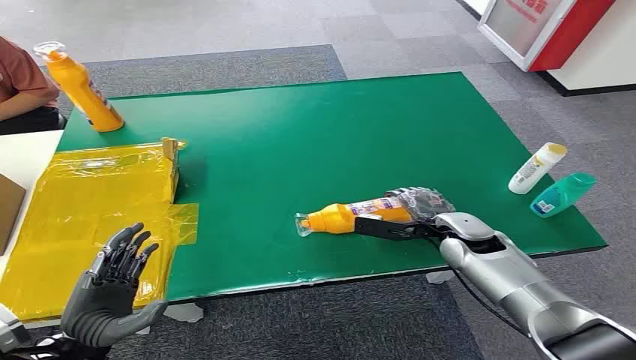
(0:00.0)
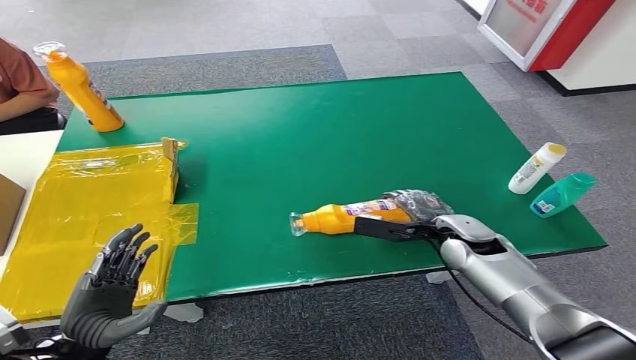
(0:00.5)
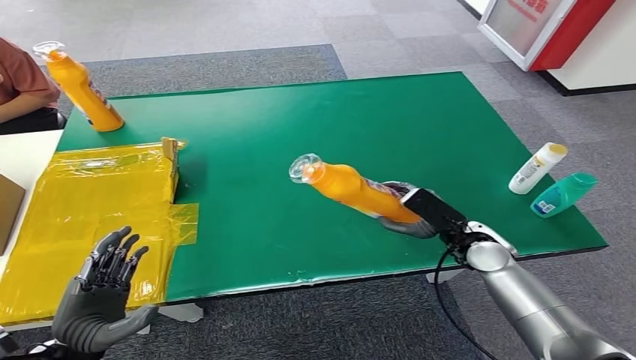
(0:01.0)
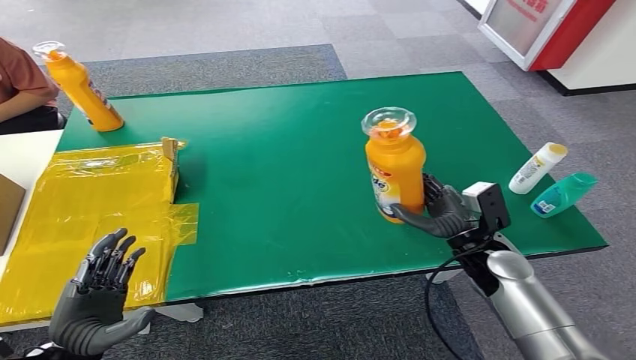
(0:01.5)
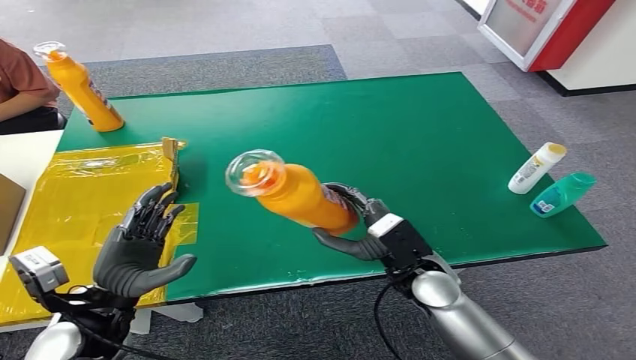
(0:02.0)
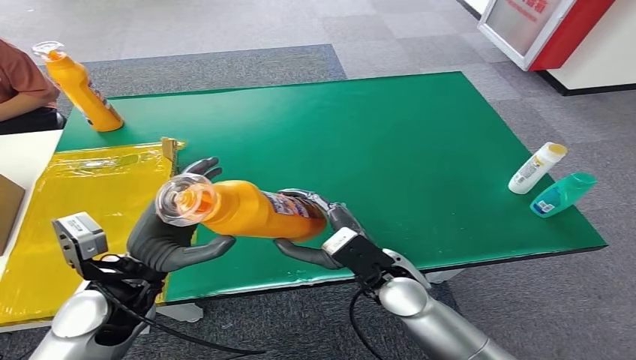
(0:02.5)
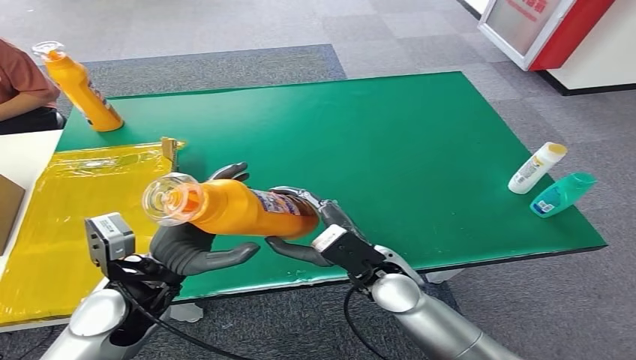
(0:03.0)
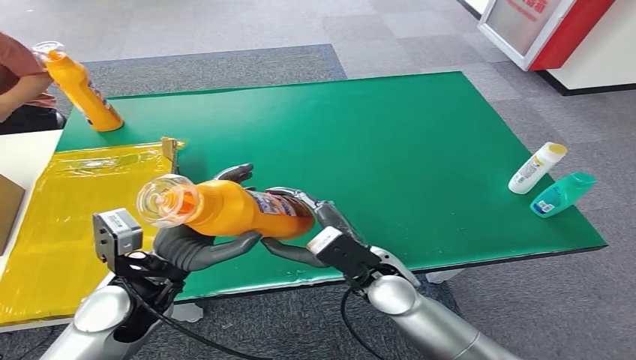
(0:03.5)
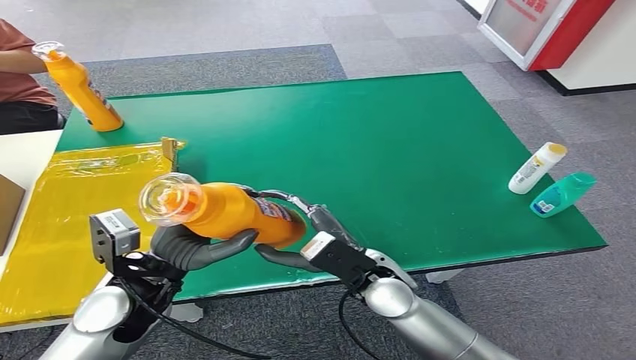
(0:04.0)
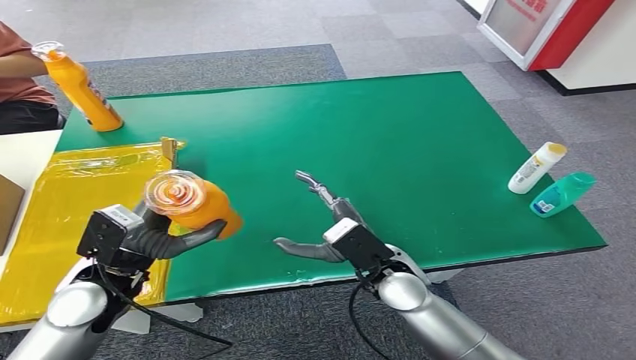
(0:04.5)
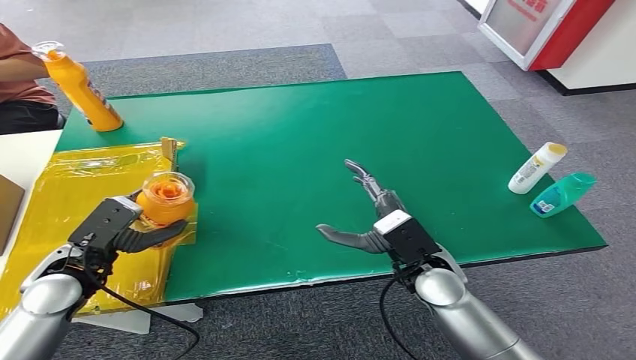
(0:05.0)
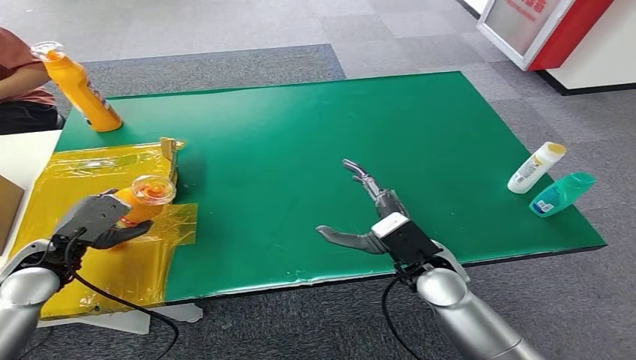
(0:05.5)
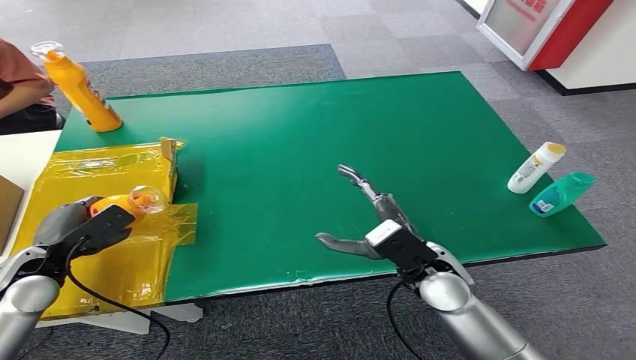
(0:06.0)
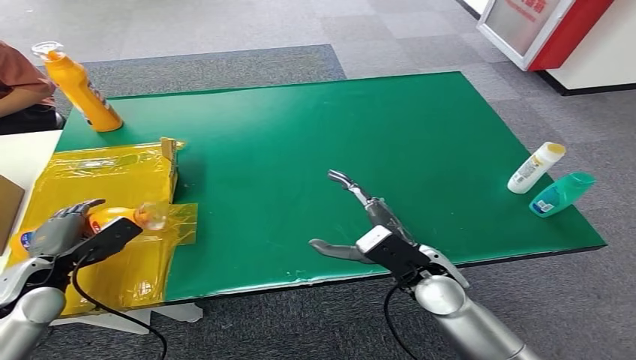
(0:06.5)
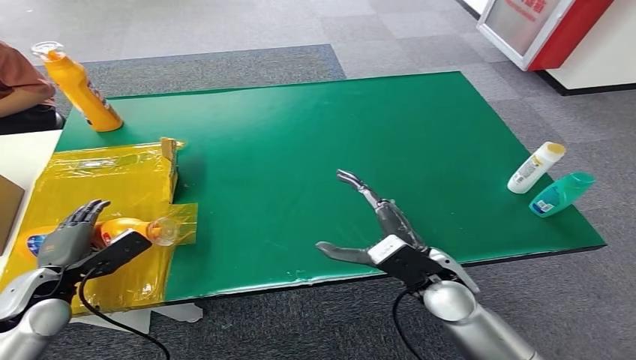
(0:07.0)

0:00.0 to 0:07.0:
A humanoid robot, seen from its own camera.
Step, 0:00.0 to 0:01.0: Pick up the bottle from the table.
Step, 0:02.0 to 0:07.0: Turn the bottle to the front side.
0:05.0 to 0:07.0: The left hand heads to the left and downward, covering roughly 10 cm.
